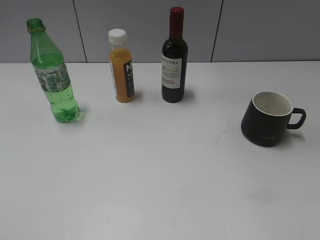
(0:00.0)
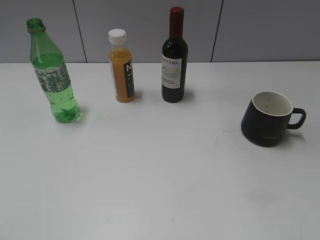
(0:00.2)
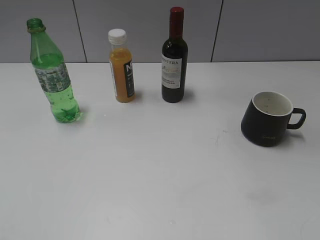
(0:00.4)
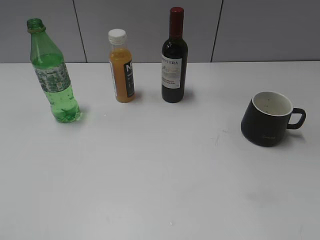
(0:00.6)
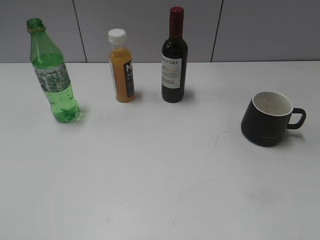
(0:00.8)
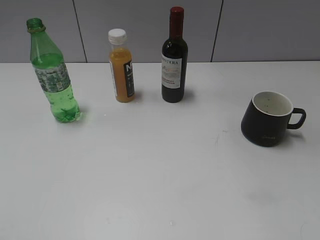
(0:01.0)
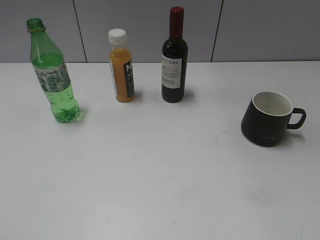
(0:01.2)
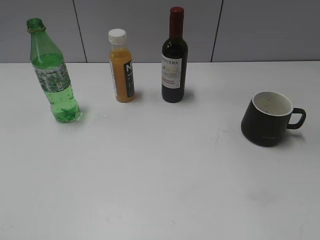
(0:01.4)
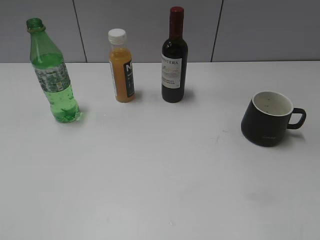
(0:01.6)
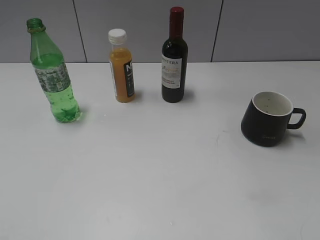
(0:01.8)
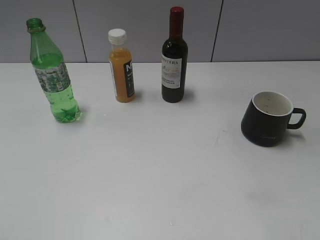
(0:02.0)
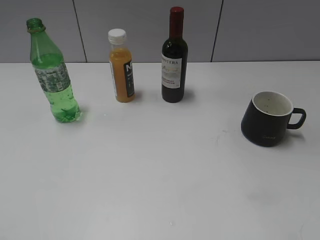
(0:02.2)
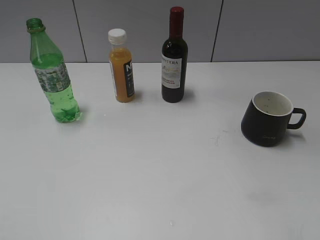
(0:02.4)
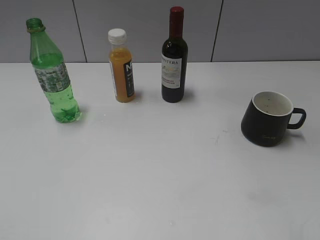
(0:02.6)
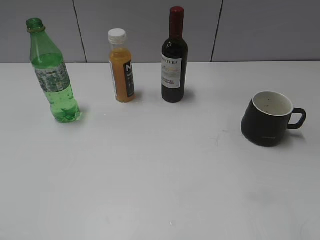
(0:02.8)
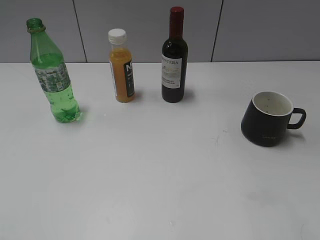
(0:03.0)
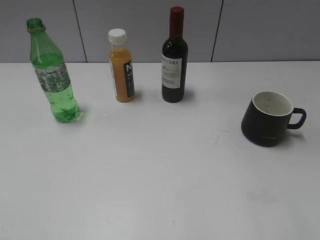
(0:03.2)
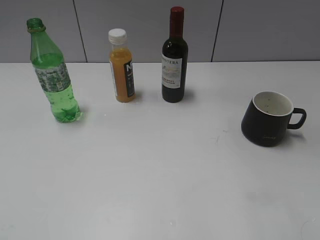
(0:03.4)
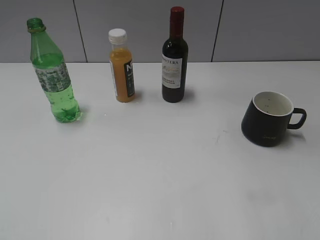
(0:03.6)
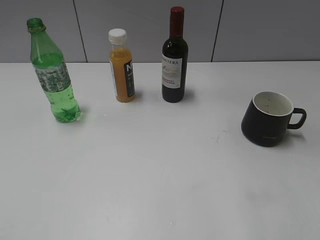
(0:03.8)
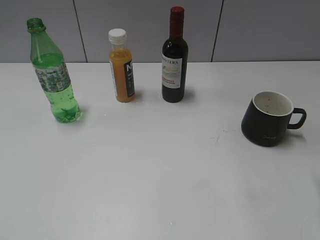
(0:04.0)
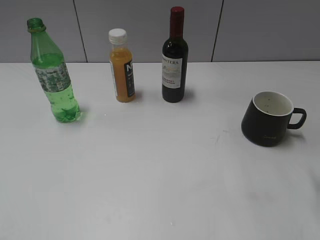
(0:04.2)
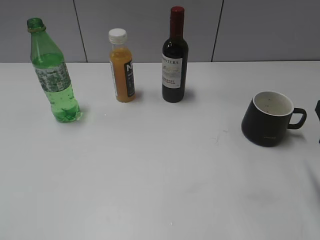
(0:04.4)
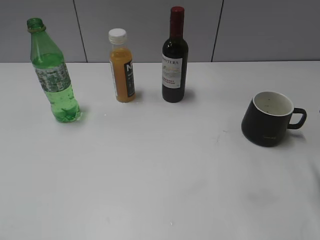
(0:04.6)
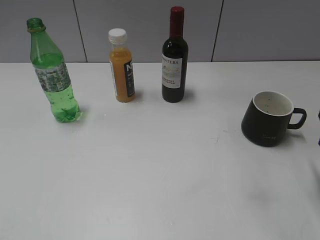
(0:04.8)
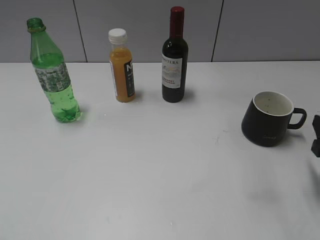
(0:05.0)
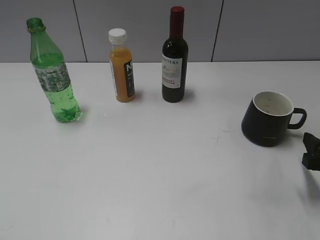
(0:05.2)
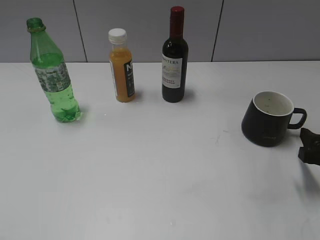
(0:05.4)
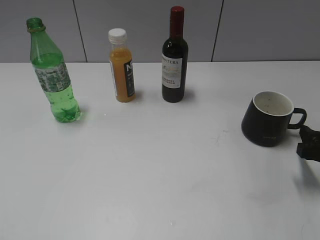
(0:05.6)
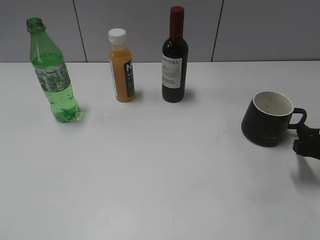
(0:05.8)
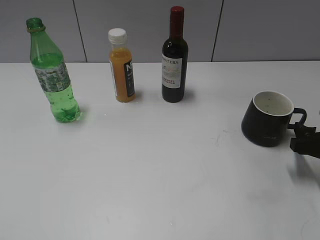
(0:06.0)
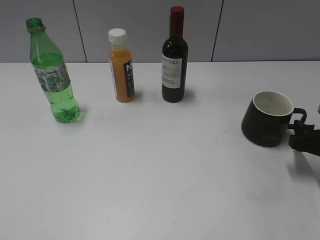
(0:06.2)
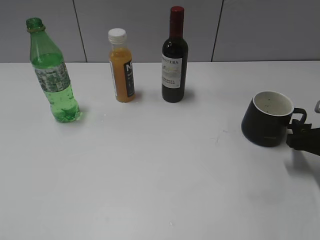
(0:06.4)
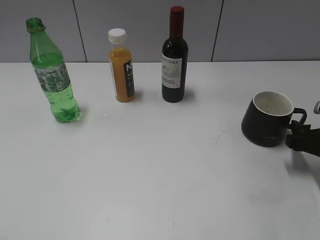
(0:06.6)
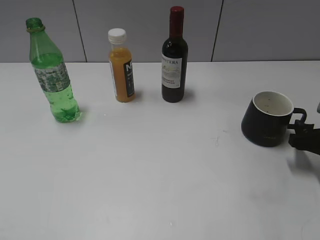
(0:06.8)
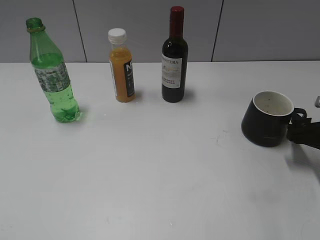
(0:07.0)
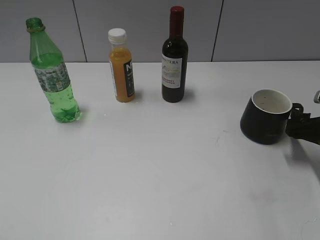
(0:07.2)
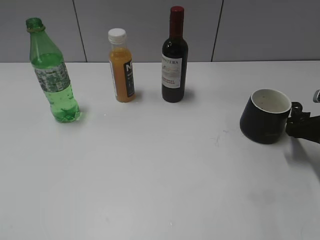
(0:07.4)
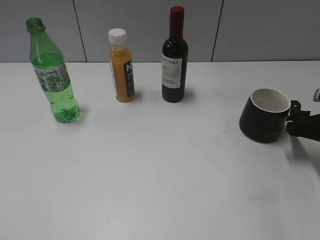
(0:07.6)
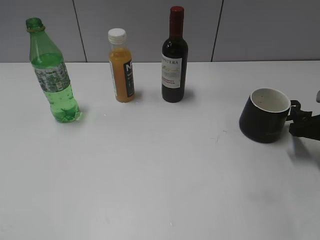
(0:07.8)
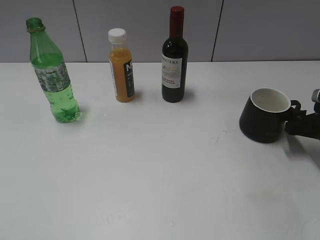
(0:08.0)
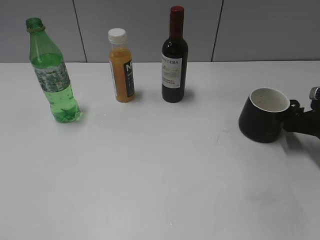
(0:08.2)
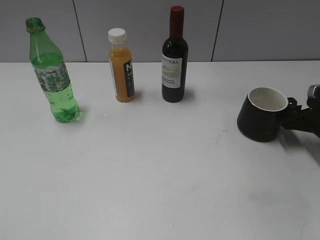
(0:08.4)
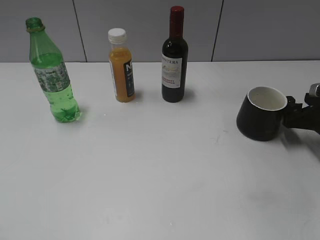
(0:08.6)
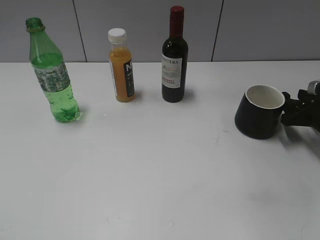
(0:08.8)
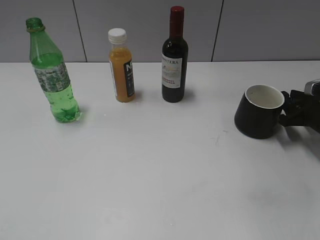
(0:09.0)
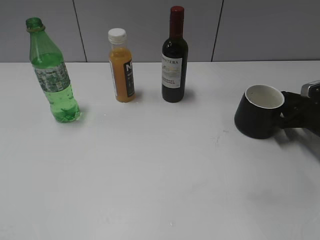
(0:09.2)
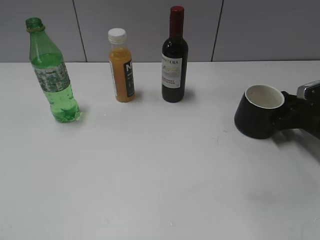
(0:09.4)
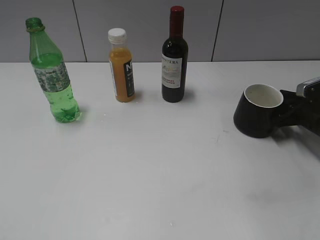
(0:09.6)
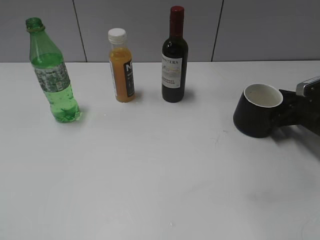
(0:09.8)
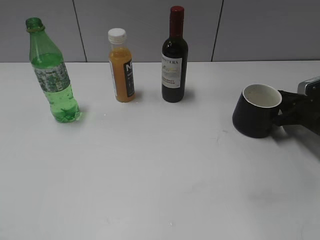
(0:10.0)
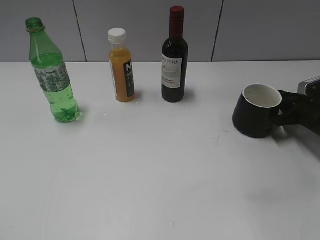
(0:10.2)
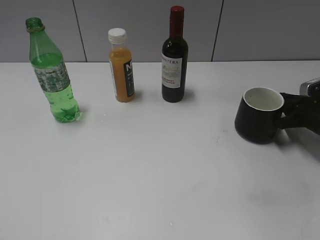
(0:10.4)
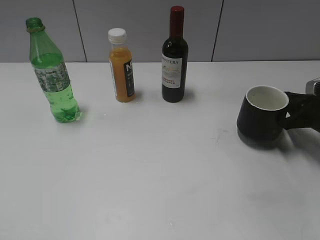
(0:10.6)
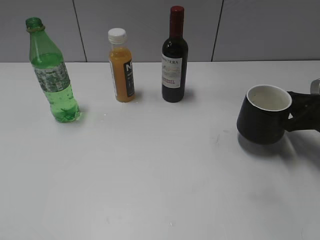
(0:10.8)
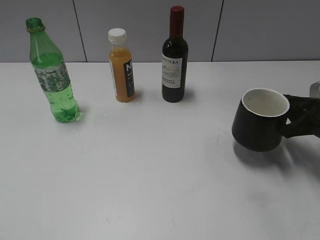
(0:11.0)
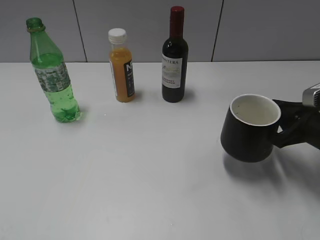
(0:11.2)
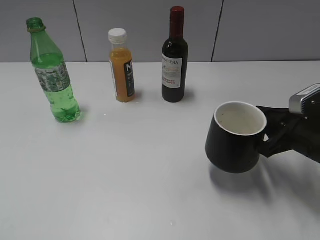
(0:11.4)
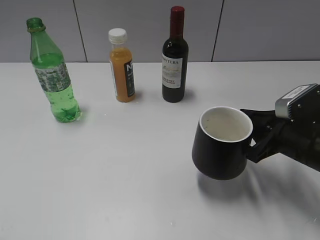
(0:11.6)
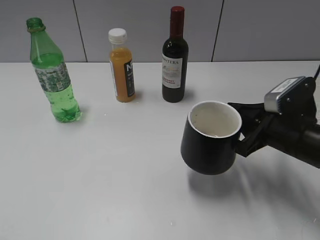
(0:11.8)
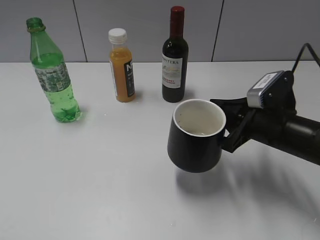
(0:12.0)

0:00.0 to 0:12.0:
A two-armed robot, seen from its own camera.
Step, 0:01.6 to 0:10.0: Grasp the black cup with right gripper.
0:04.4 to 0:06.0: The right gripper moves downward and forward, roughly 10 cm.
0:06.0 to 0:07.6: The grippers make only small movements.
0:07.6 to 0:09.0: The right gripper heads forward, covering about 5 cm, and closes.
0:09.0 to 0:10.4: The right gripper closes up.
0:10.4 to 0:12.0: The right gripper is displaced to the left, backward and upward by about 15 cm.

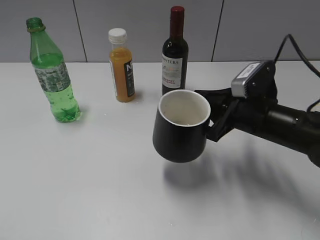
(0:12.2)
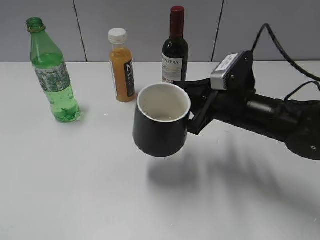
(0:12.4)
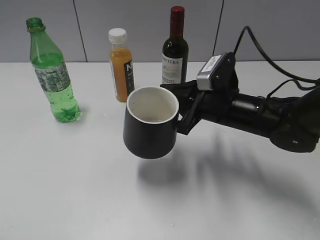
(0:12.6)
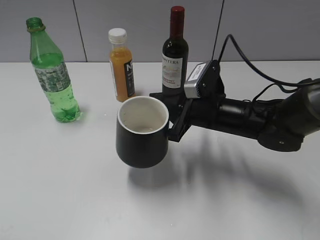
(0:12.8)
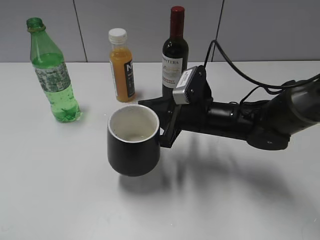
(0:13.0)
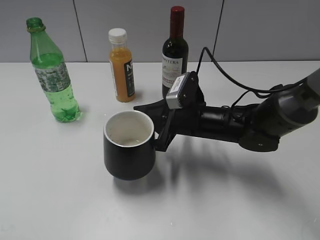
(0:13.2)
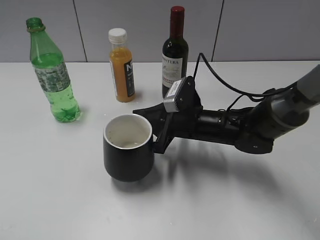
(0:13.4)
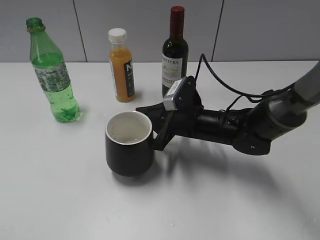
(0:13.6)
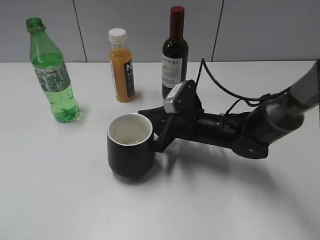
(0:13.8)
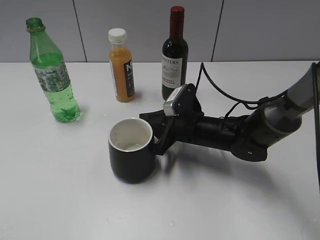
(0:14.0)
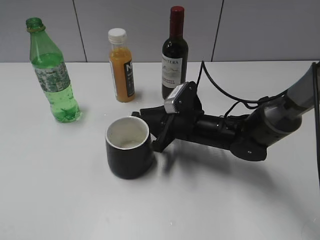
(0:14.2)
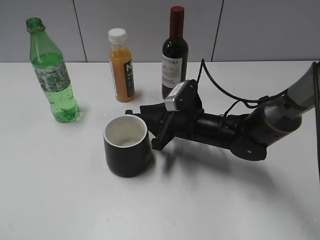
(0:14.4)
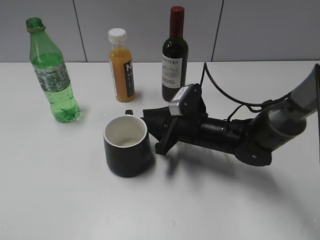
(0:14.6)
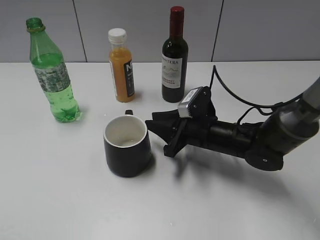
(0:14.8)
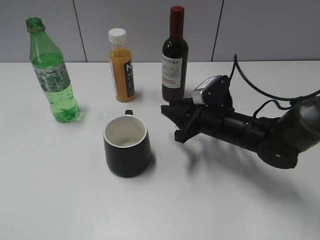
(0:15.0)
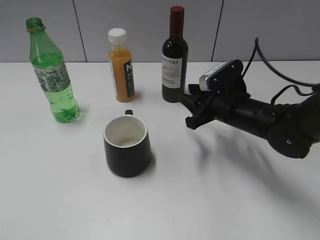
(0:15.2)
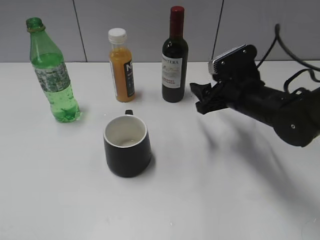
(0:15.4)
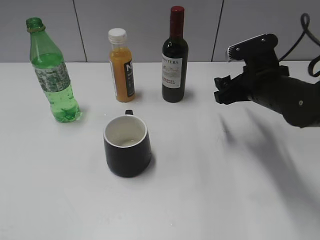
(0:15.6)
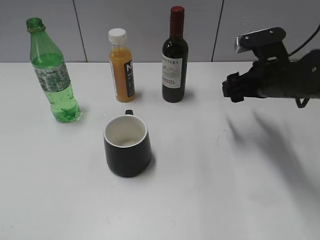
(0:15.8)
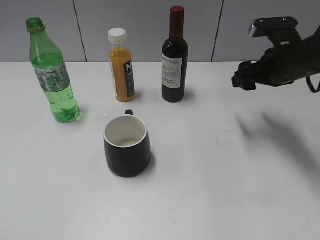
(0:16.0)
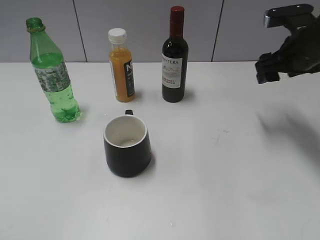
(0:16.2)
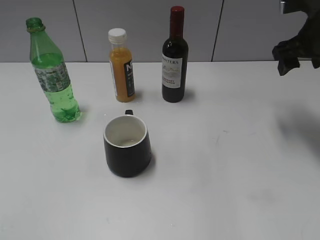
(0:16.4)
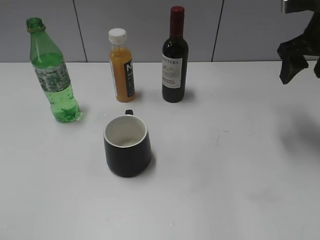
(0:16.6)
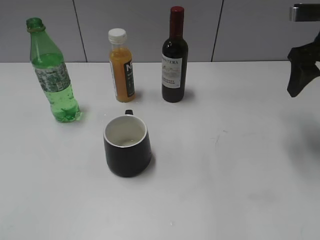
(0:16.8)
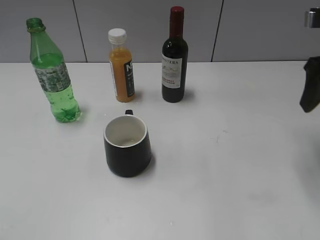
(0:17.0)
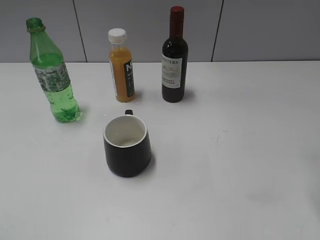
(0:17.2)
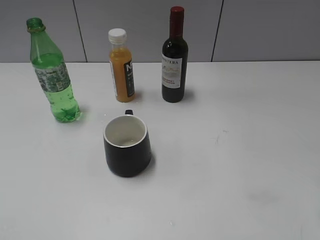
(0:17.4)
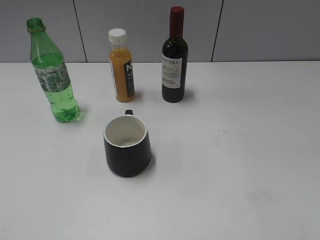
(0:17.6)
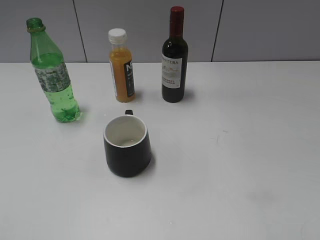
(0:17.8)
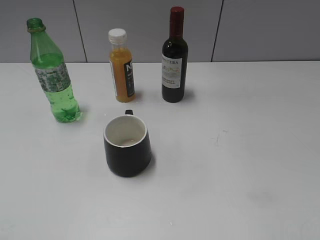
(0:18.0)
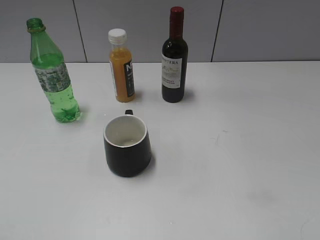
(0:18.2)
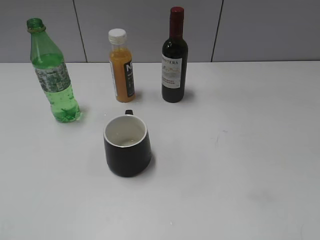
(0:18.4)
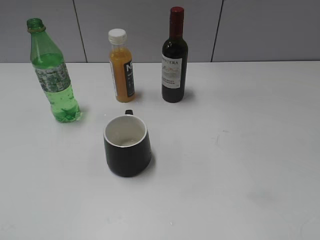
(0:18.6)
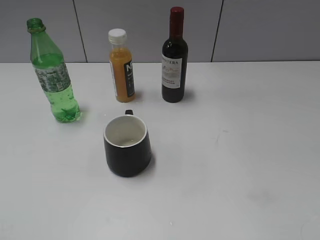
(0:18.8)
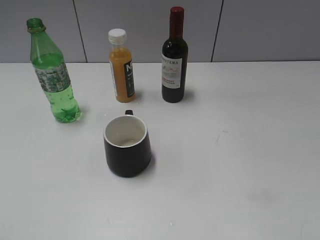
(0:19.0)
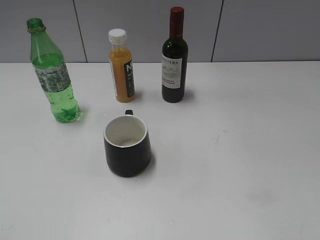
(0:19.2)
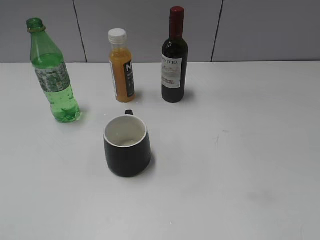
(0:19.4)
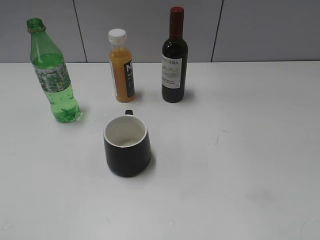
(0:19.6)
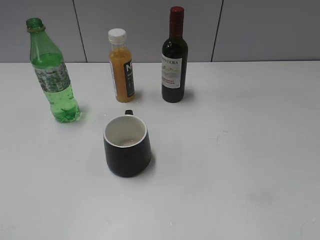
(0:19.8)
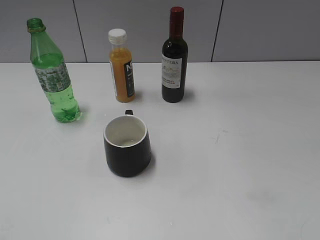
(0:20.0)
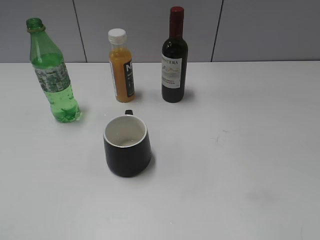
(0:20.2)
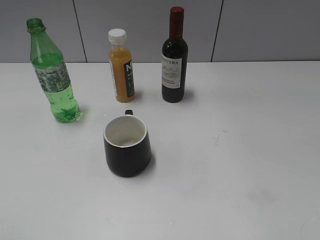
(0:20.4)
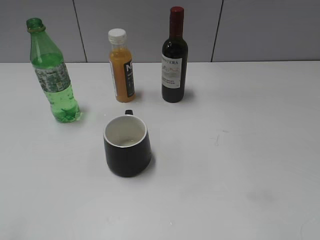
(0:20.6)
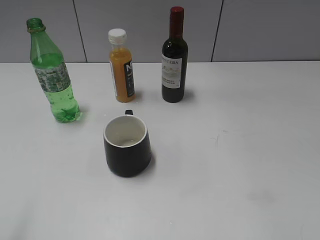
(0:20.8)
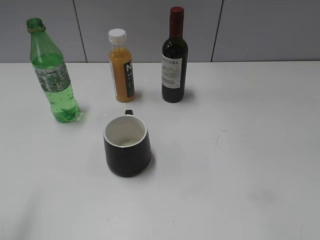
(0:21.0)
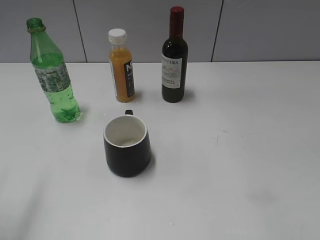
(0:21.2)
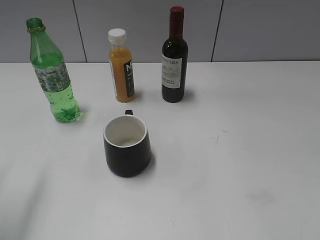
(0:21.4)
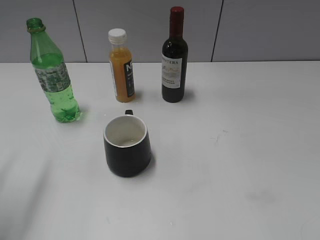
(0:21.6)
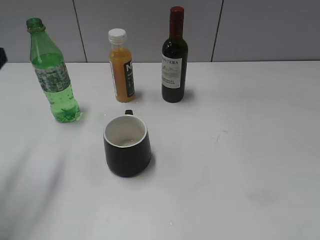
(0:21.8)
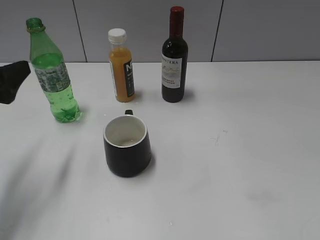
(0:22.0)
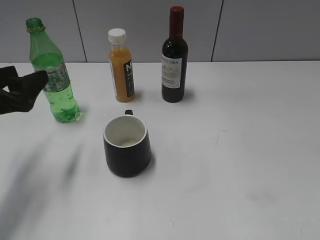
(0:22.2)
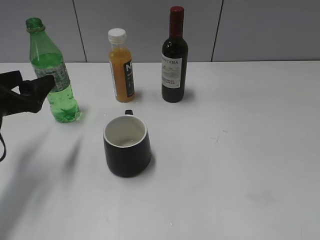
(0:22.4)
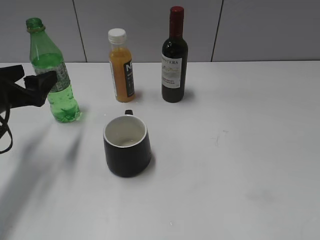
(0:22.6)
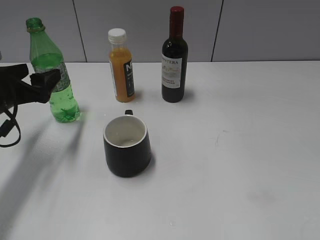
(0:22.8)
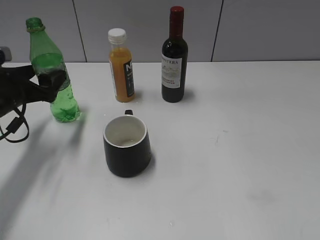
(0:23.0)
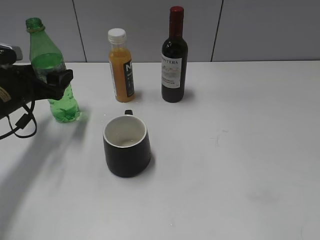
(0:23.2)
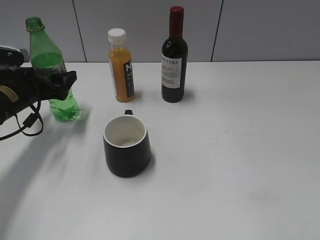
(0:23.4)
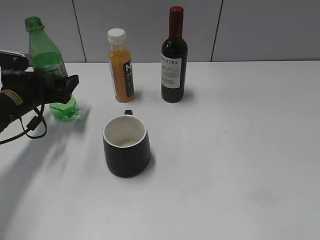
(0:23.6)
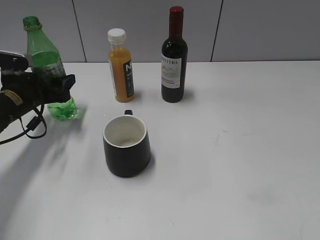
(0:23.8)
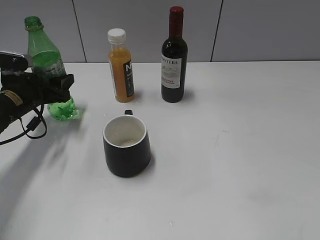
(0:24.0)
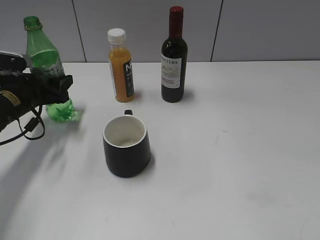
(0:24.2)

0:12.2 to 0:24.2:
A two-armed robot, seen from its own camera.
Step, 0:12.2 to 0:14.6: Place the black cup in the center of view with right gripper.
Step, 0:14.8 to 0:23.8: Grasp the bottle with sprite with left gripper.
0:12.2 to 0:13.8: The right gripper shifts roughly 10 cm to the left and downward.
0:13.8 to 0:15.2: The right gripper goes approximately 5 cm to the right, and opens its fingers.
0:15.2 to 0:16.6: The right gripper shifts about 20 cm upward and to the right, and opens its fingers.
0:16.6 to 0:18.2: The right gripper heads backward, covering some 30 cm.
0:21.2 to 0:22.6: The left gripper is displaced forward and downward by roughly 20 cm.
0:22.6 to 0:24.2: The left gripper heads forward and downward, covering about 10 cm, and closes up.
